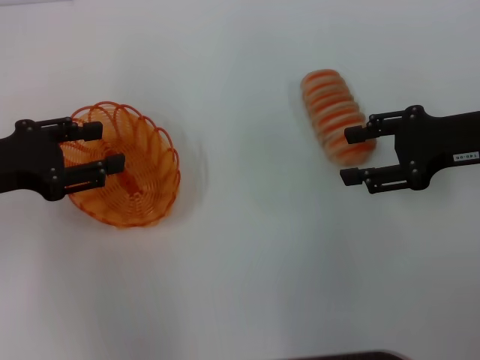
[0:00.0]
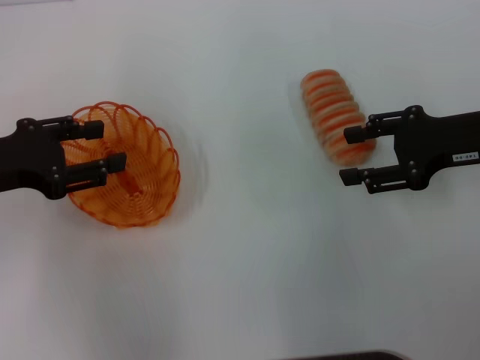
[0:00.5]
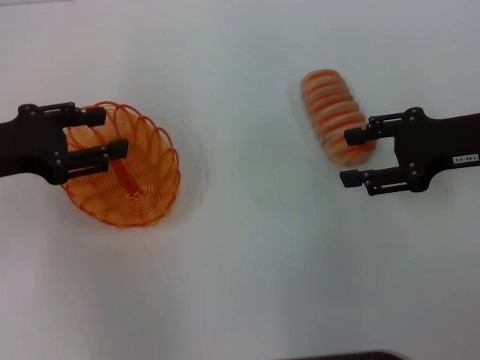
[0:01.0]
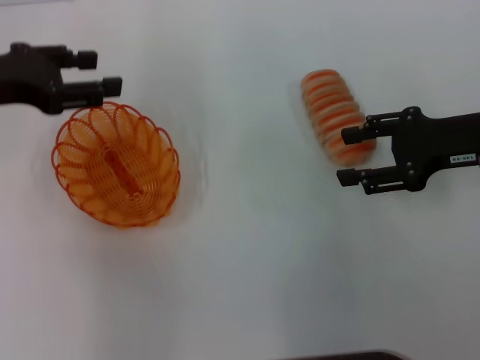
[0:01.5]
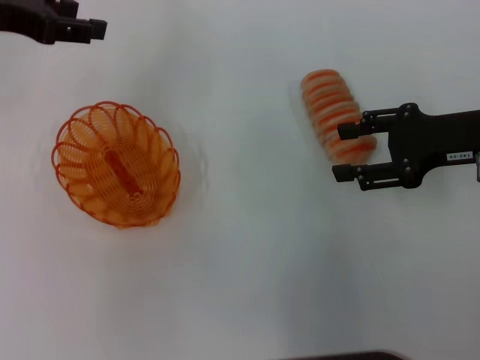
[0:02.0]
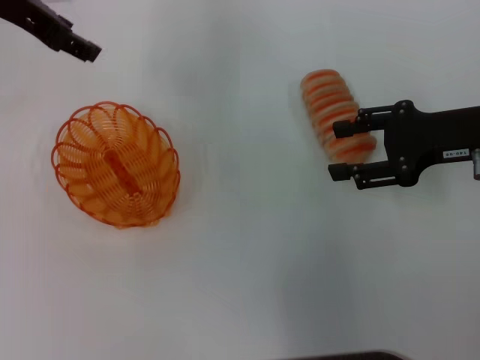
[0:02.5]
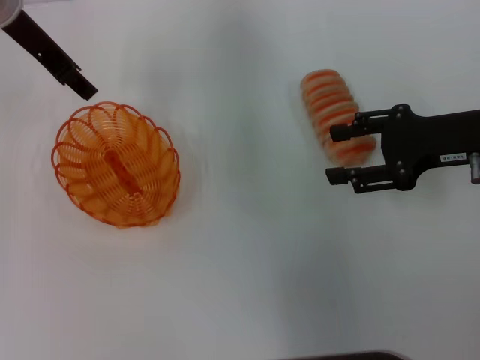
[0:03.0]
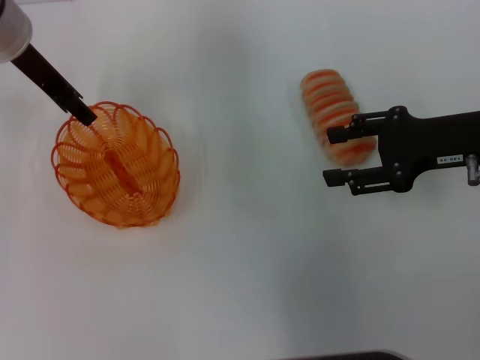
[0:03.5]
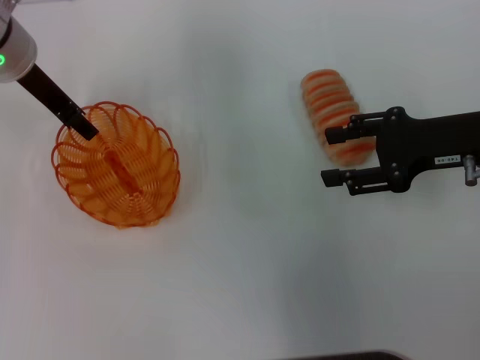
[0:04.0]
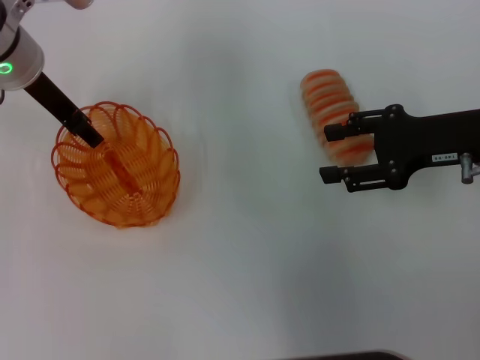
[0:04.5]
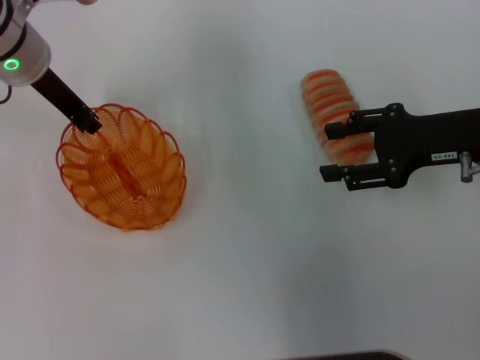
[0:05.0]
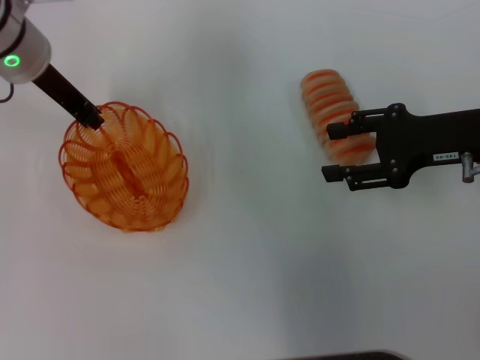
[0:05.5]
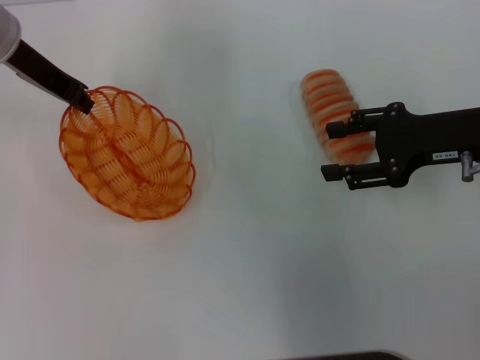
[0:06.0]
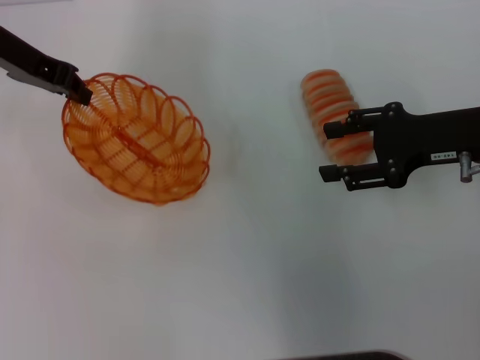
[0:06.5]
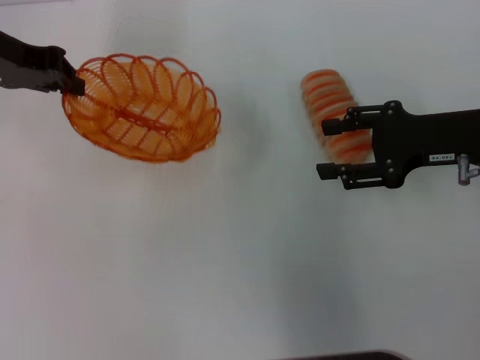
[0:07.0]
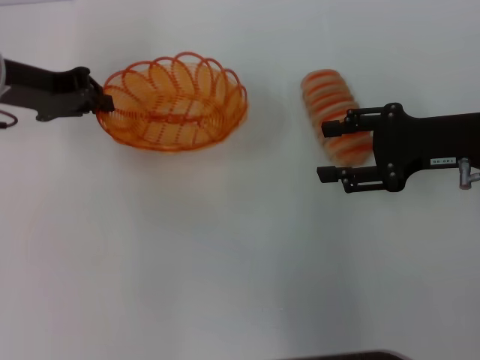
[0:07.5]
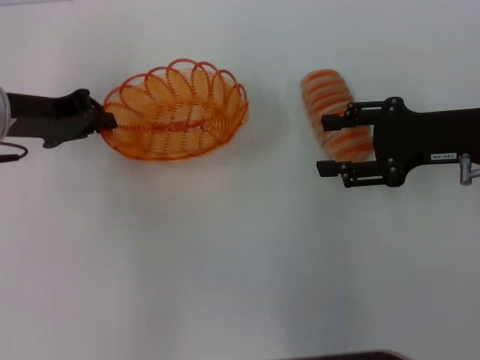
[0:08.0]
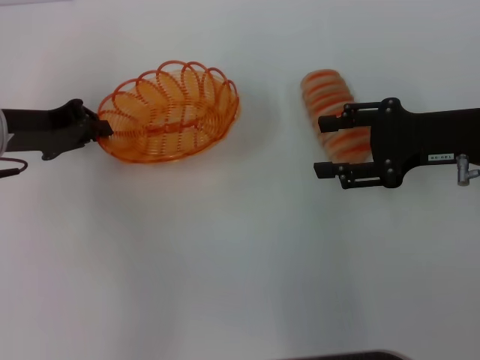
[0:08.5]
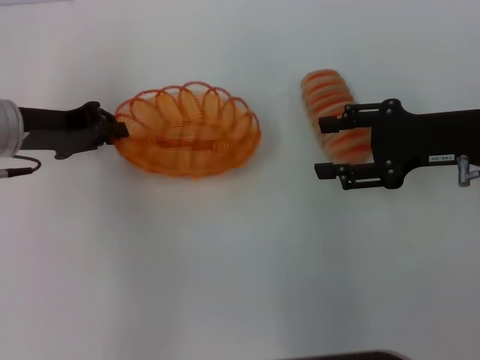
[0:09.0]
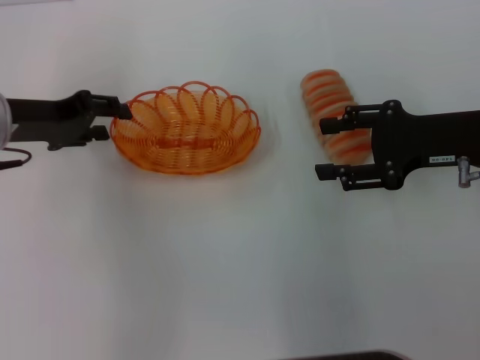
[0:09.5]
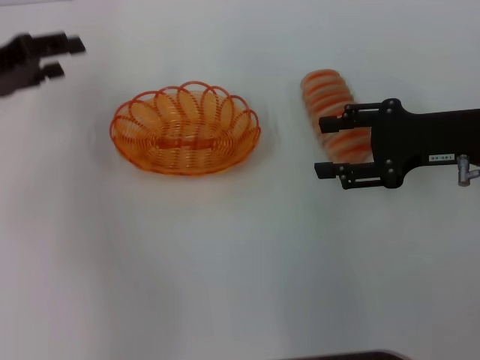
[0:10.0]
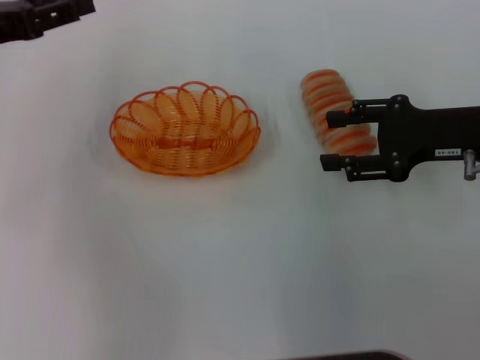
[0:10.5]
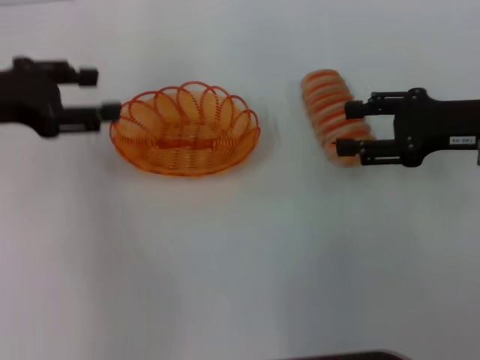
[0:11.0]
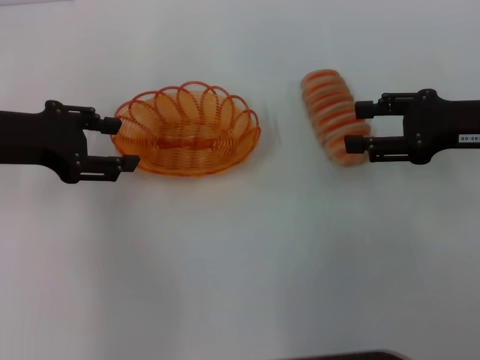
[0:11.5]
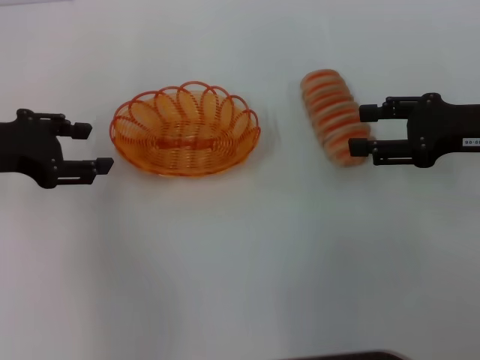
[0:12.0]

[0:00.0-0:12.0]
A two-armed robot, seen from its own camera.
Step, 0:00.0 to 0:06.0: Pick up the basket with the left gripper.
Step, 0:06.5 to 0:09.5: Place the basket in the center of view with the left gripper.
0:00.0 to 0:02.0: The left gripper shifts about 15 cm forward and upward.
0:02.0 to 0:04.0: The left gripper goes roughly 10 cm to the right and downward.
0:04.0 to 0:06.0: The left gripper closes.
0:06.0 to 0:08.0: The left gripper heads downward and backward, covering approximately 10 cm.
0:08.0 to 0:10.0: The left gripper moves roughly 5 cm, and opens up.

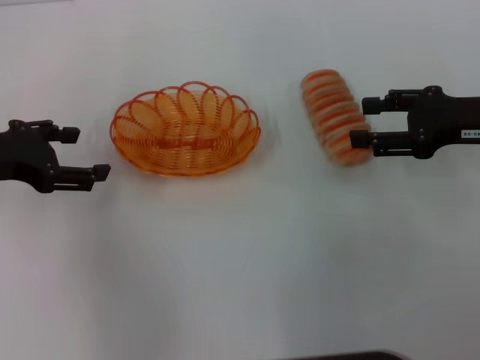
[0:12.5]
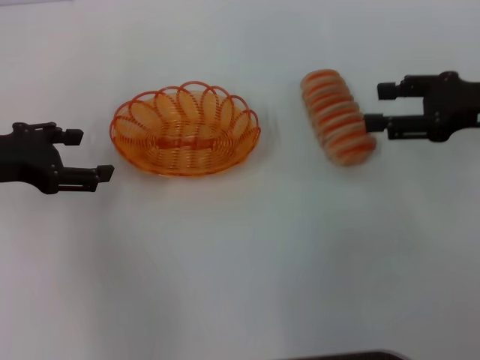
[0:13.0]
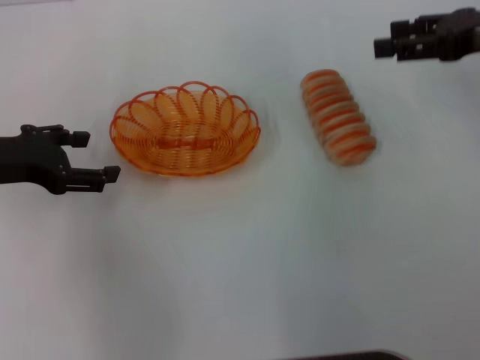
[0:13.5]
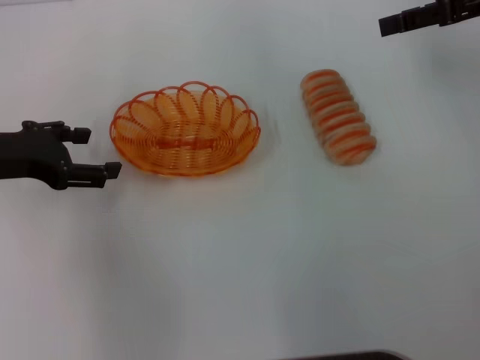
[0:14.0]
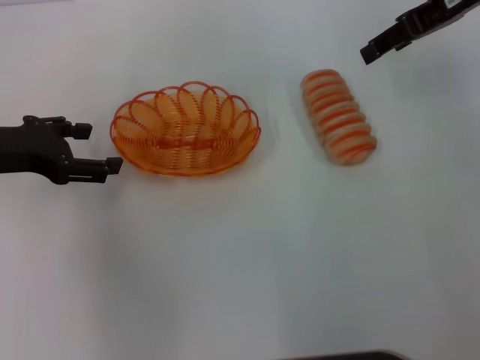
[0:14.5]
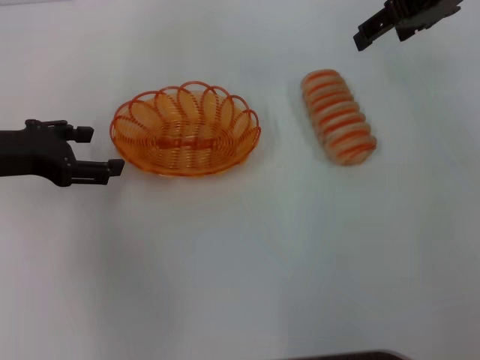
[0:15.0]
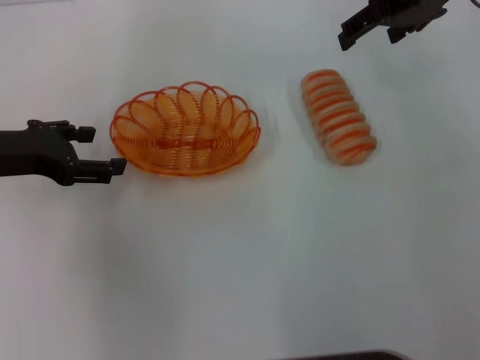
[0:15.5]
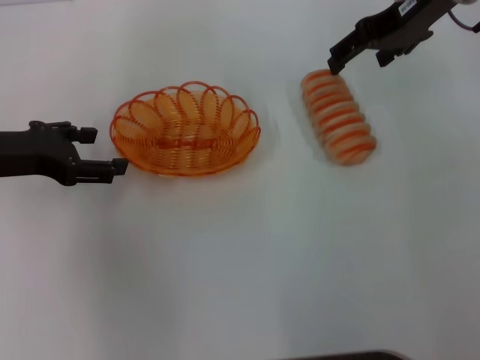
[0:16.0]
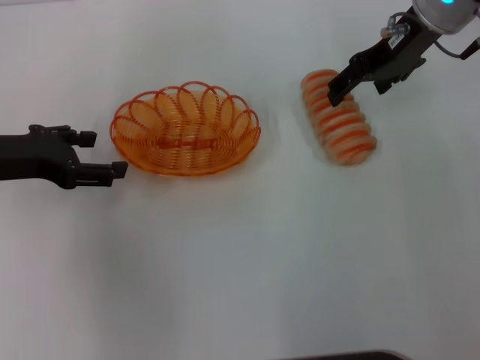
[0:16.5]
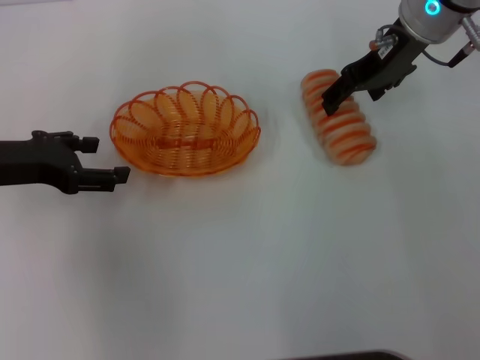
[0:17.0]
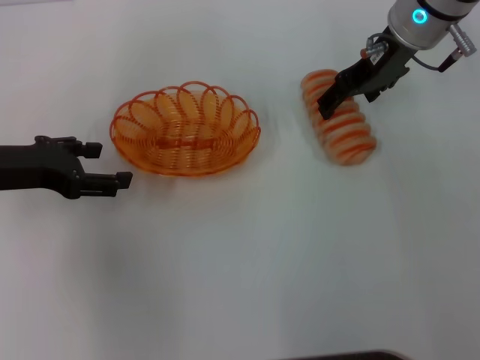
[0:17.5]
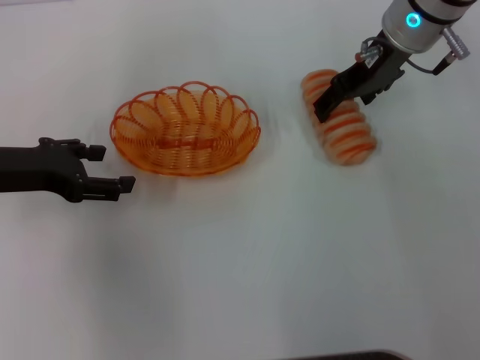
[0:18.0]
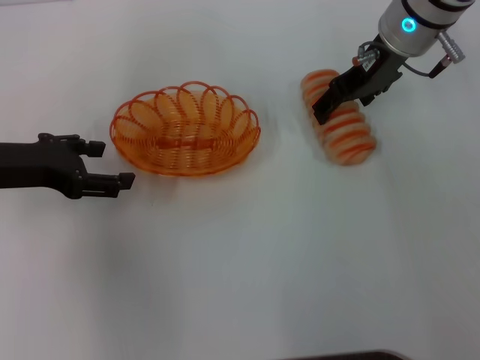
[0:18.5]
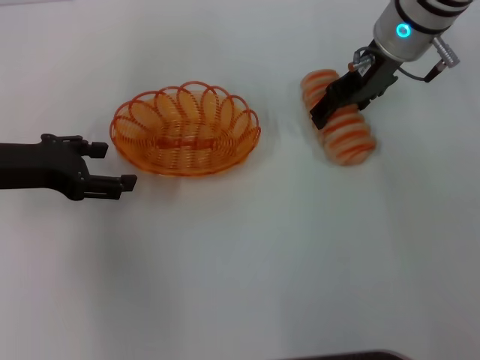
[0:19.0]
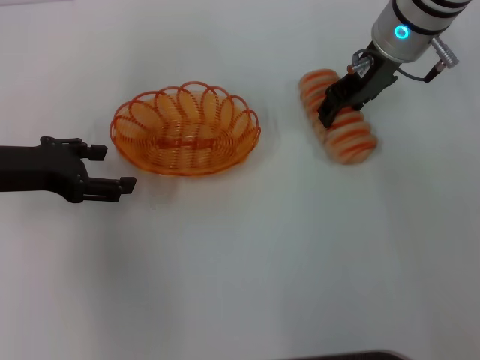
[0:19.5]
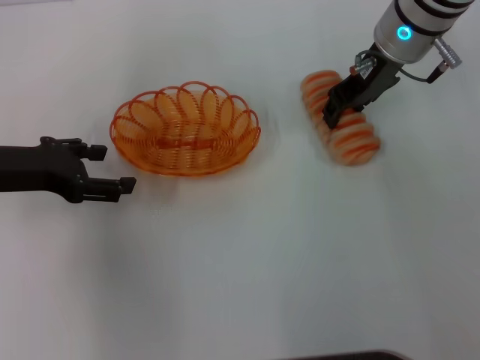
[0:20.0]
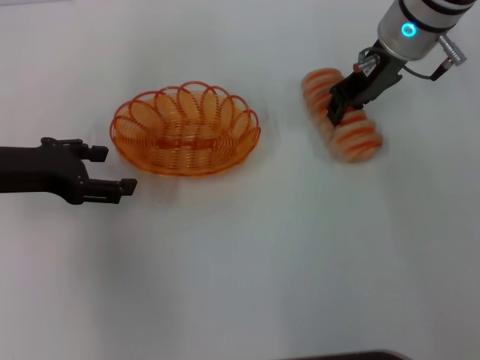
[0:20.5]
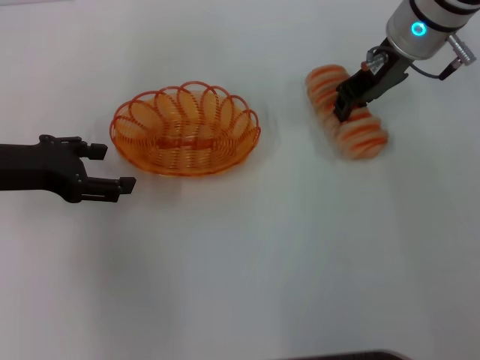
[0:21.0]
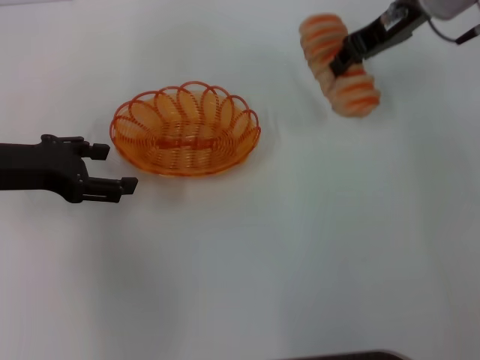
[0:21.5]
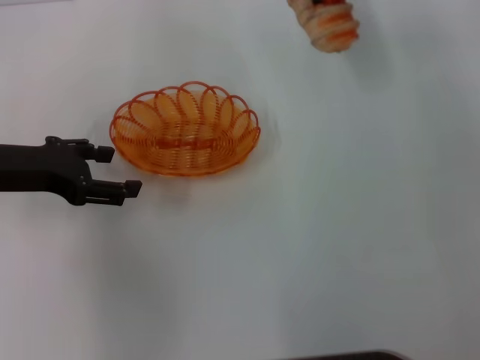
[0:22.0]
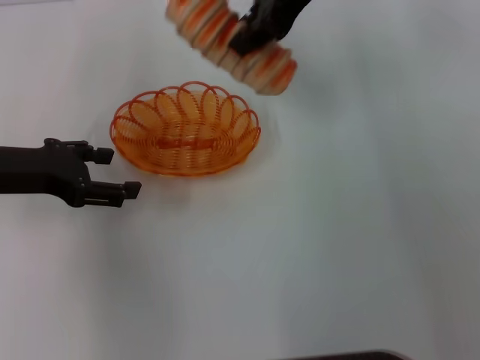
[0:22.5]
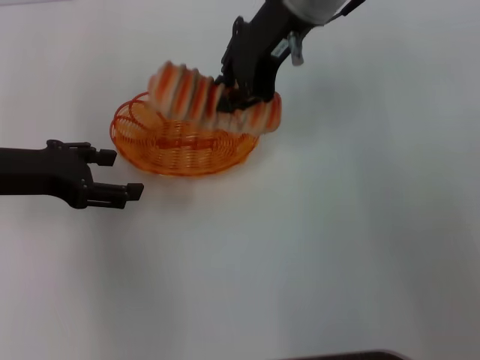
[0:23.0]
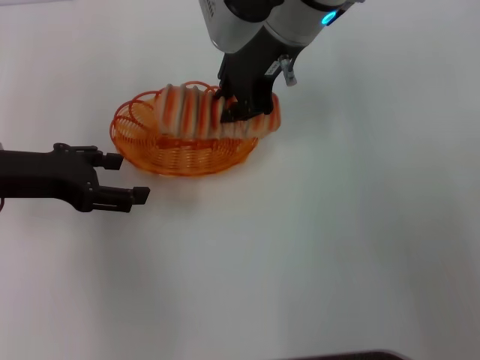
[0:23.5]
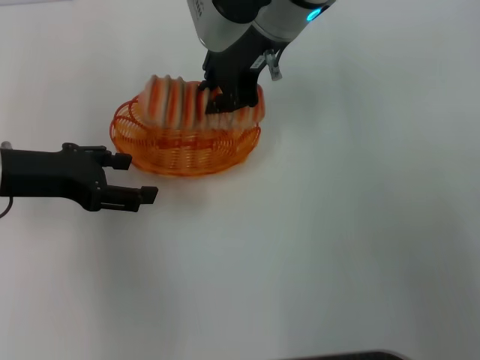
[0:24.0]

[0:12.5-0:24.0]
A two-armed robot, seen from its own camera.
Step, 0:12.5 to 0:21.0: Pick up the long bread with the right gripper.
0:12.5 to 0:14.5: The right gripper travels upward, forward and to the left by roughly 15 cm.
0:14.5 to 0:16.5: The right gripper shifts approximately 5 cm to the left.
0:16.5 to 0:18.5: There are only small adjustments of the grippers.
0:18.5 to 0:20.0: The right gripper closes.
0:20.0 to 0:22.0: The right gripper heads upward, covering about 10 cm, and closes.
0:22.0 to 0:24.0: The right gripper heads to the left, covering about 15 cm.

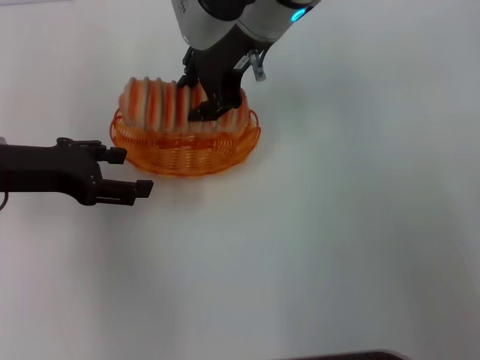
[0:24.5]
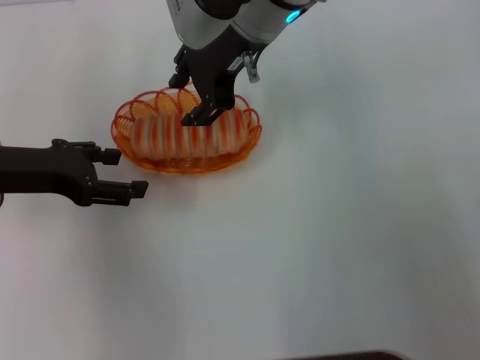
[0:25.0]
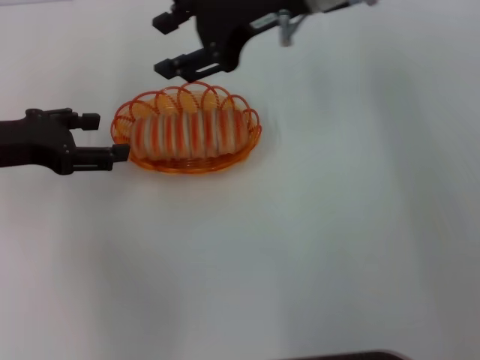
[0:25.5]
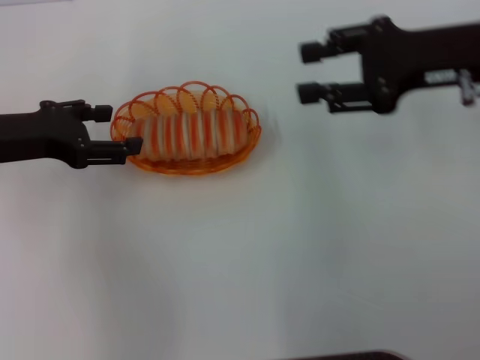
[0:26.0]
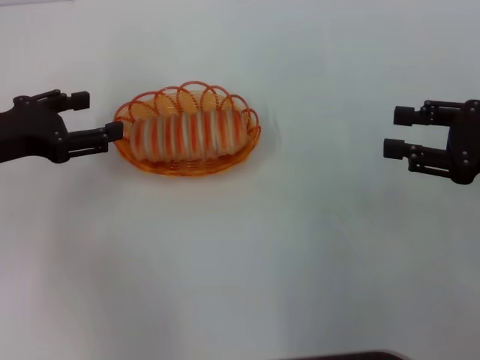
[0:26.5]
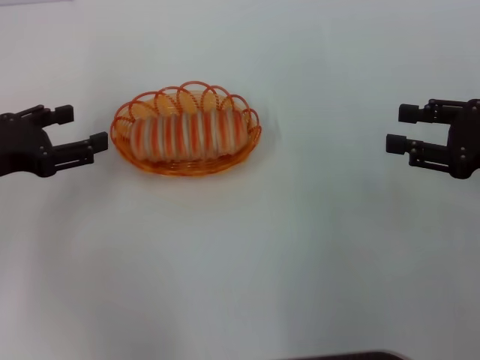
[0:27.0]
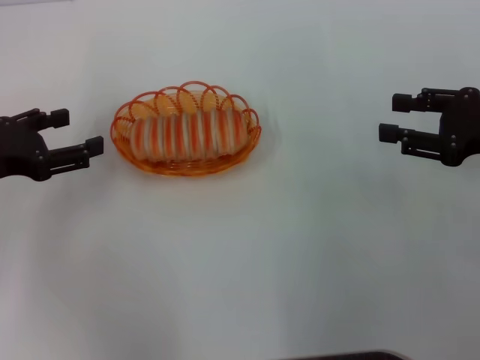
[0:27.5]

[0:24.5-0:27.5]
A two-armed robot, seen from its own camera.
0:24.5 to 0:26.0: The right gripper moves to the right, some 20 cm.
0:26.0 to 0:27.5: The right gripper heads to the right, backward and downward, covering about 10 cm; the left gripper changes place by approximately 5 cm.
